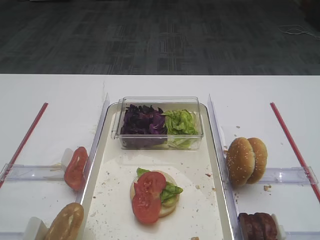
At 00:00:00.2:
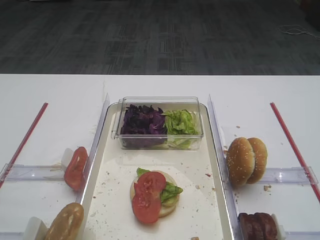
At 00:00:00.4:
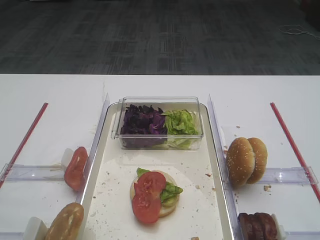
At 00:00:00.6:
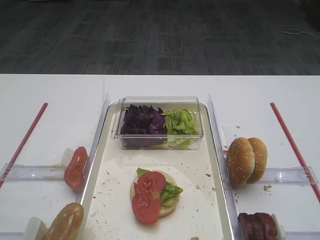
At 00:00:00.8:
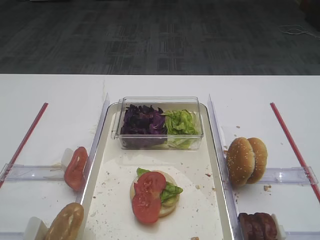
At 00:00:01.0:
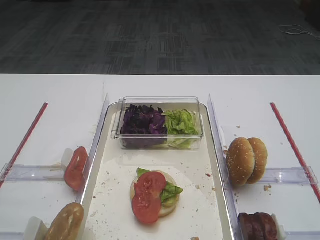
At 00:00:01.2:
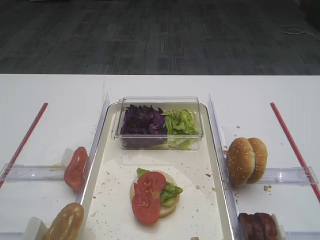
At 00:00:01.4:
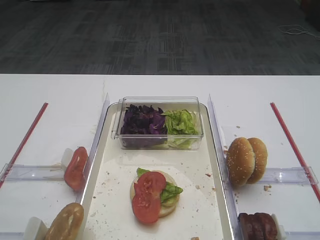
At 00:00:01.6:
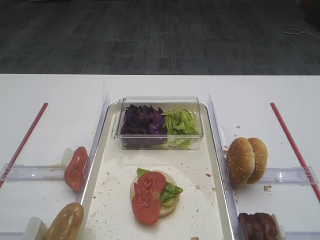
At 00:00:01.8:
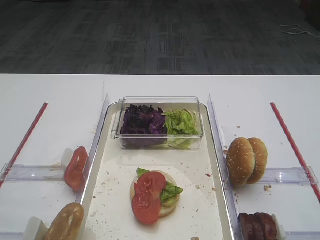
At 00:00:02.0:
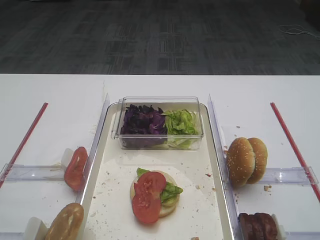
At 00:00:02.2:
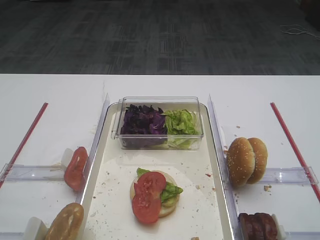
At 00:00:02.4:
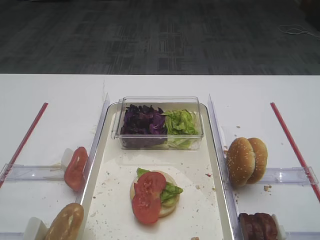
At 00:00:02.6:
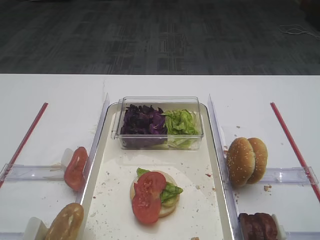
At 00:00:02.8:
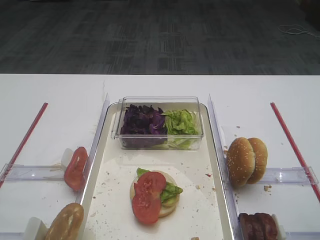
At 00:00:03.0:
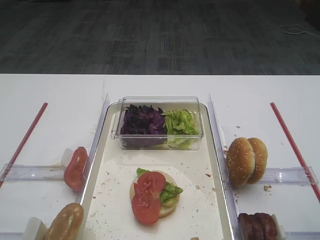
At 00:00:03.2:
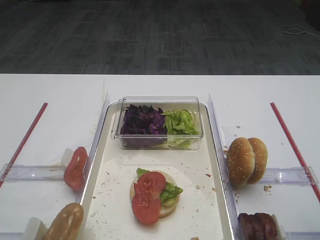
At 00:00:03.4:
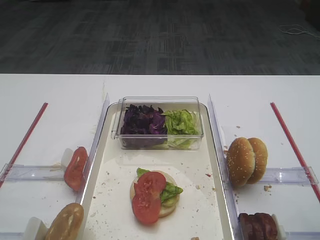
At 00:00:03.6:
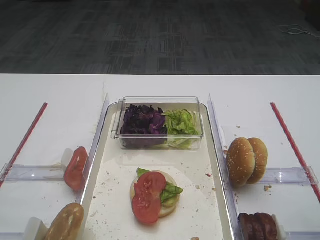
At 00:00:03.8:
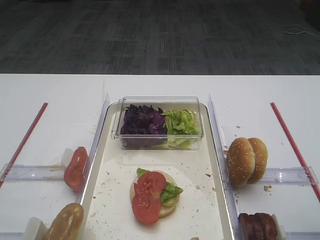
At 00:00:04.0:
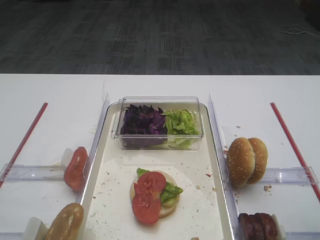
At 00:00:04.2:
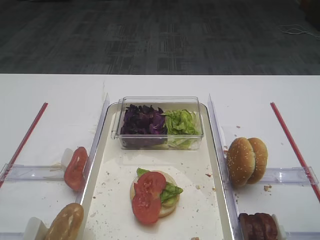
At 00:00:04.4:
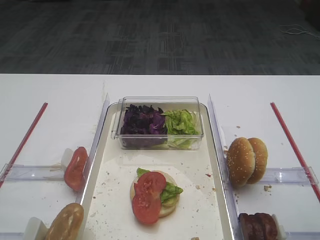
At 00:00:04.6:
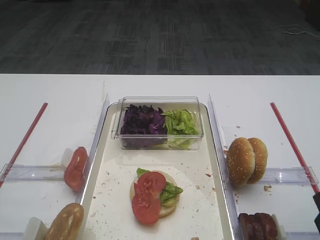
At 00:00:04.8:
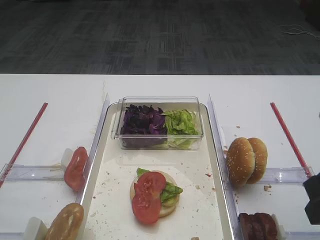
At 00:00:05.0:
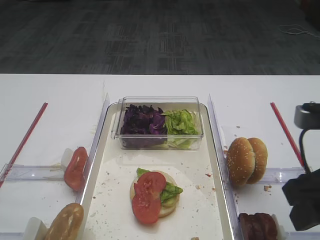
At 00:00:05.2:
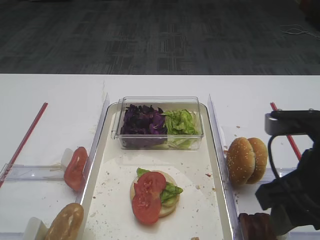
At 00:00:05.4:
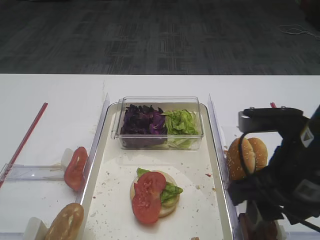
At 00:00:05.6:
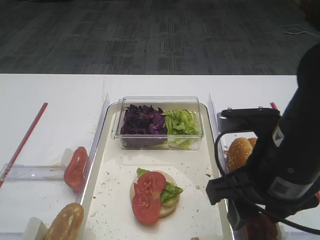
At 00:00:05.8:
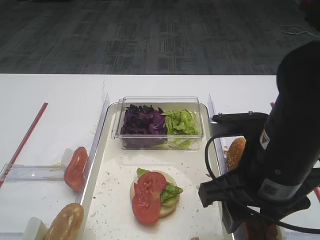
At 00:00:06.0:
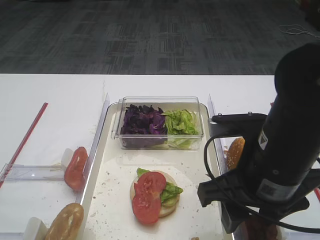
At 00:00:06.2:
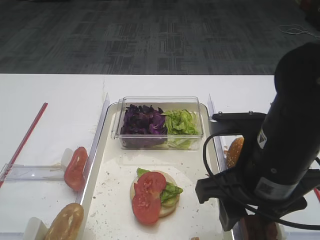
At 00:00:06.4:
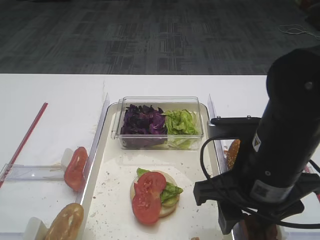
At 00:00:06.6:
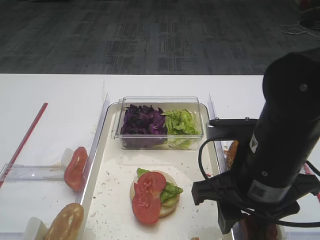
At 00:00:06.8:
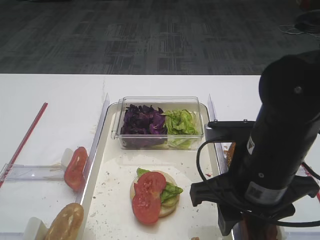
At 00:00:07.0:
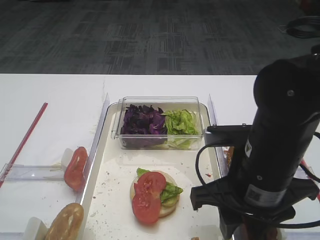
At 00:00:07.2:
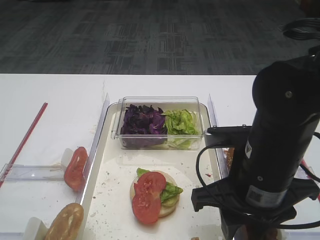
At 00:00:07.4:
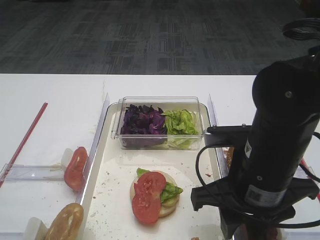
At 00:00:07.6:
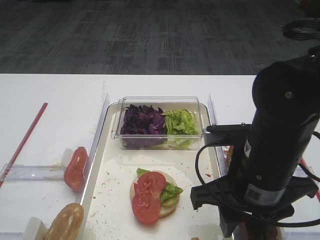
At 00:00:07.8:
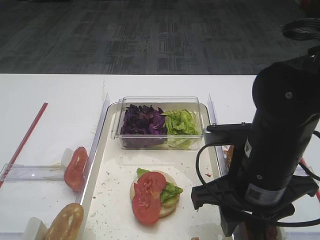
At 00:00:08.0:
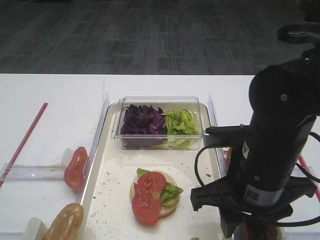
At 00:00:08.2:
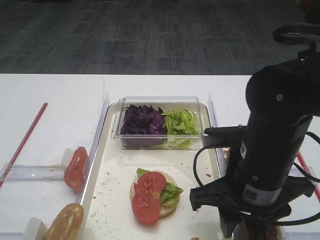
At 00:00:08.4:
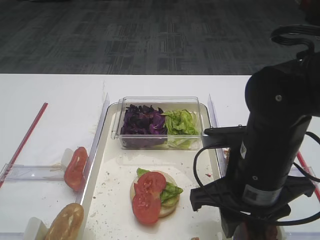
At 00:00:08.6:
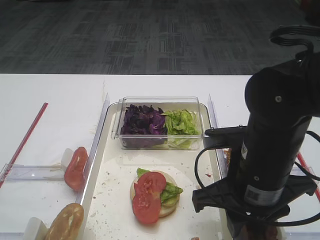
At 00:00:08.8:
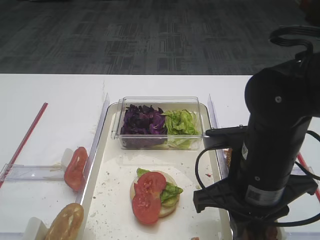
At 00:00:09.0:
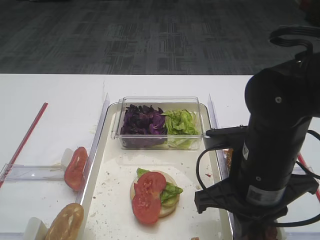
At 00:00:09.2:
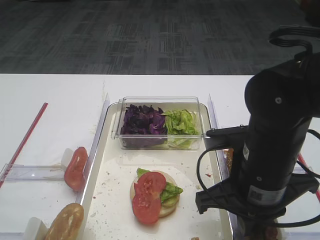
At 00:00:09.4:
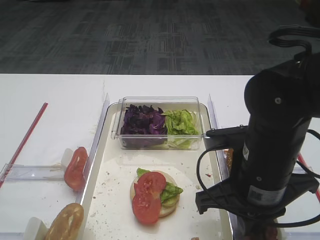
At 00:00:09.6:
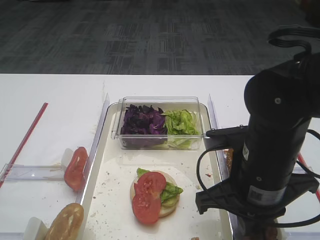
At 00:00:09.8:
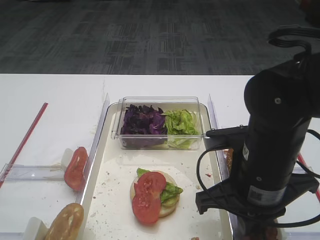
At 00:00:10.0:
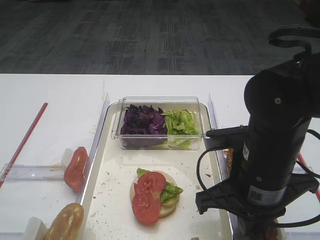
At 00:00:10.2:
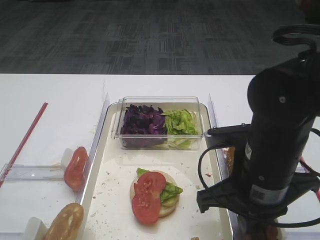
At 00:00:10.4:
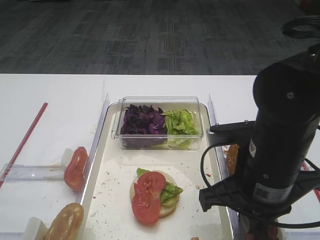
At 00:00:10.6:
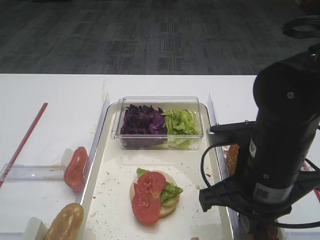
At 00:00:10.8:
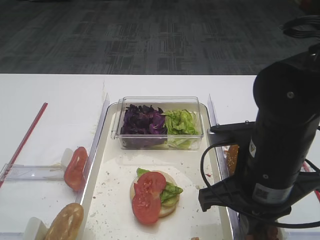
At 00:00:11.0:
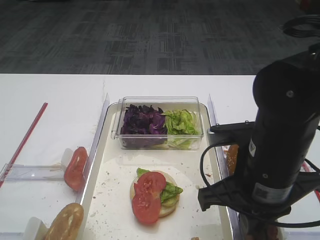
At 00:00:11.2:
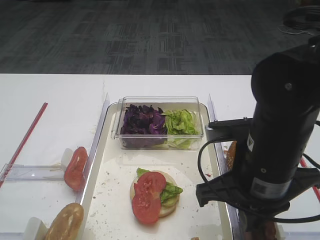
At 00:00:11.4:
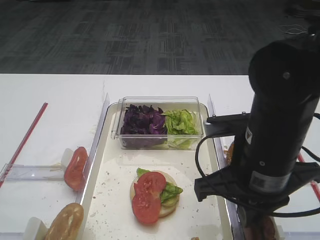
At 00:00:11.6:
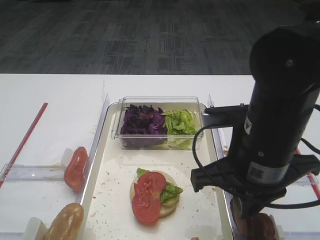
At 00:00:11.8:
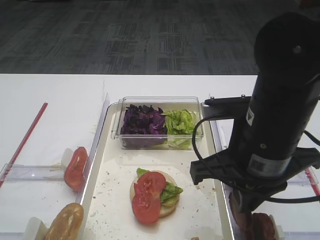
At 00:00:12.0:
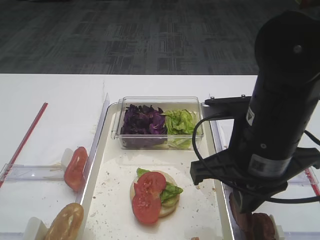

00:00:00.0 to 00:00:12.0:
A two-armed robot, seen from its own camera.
00:00:04.4 to 00:00:06.0: The right gripper shifts roughly 15 cm to the left.
00:00:06.0 to 00:00:07.6: The grippers make only small movements.
00:00:07.6 to 00:00:09.0: Both grippers stay put.
00:00:09.0 to 00:00:10.4: Neither gripper changes place.
00:00:10.4 to 00:00:12.0: The grippers make only small movements.

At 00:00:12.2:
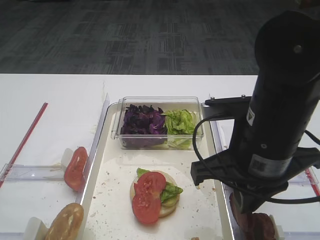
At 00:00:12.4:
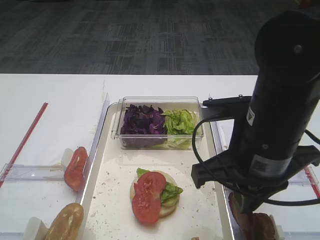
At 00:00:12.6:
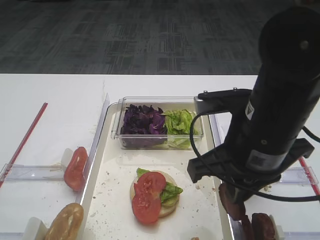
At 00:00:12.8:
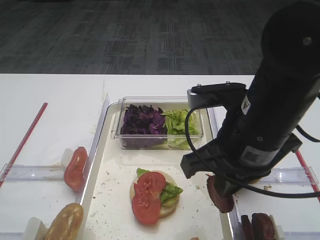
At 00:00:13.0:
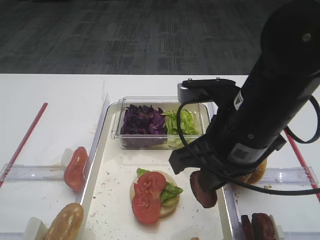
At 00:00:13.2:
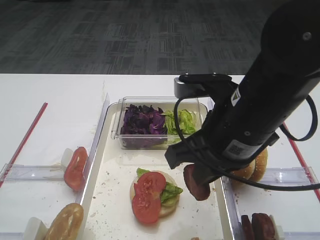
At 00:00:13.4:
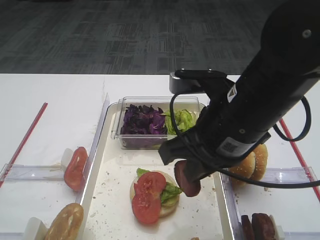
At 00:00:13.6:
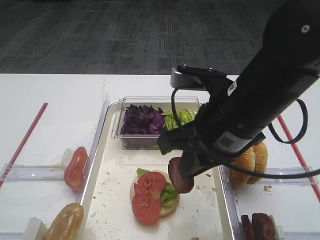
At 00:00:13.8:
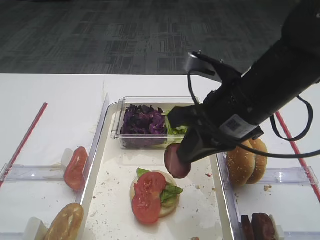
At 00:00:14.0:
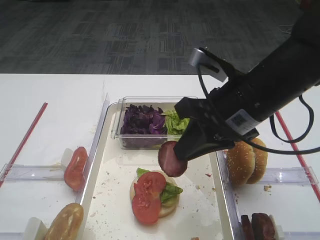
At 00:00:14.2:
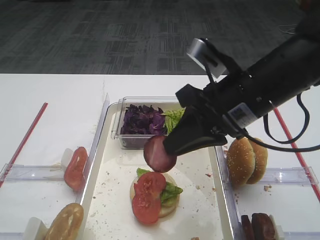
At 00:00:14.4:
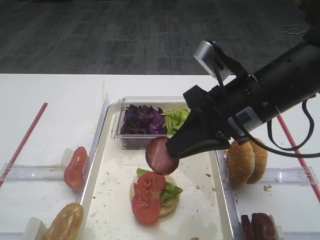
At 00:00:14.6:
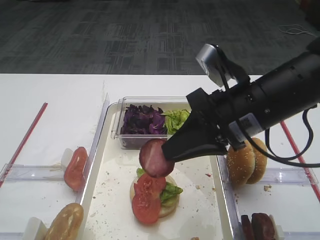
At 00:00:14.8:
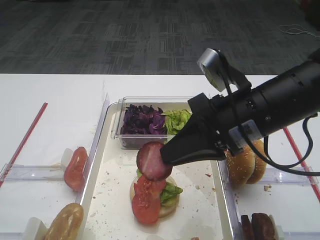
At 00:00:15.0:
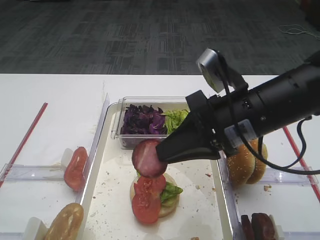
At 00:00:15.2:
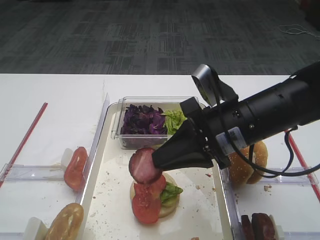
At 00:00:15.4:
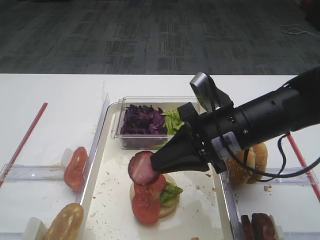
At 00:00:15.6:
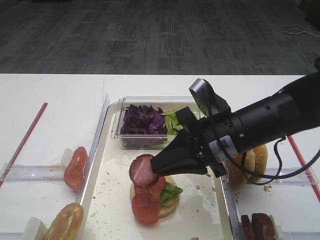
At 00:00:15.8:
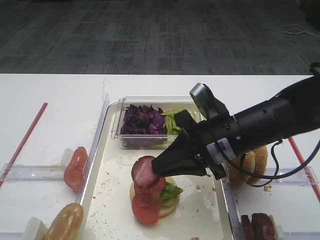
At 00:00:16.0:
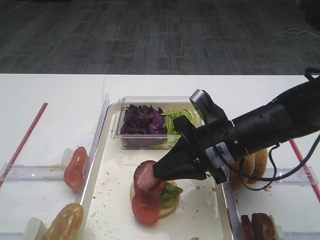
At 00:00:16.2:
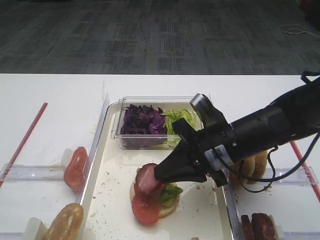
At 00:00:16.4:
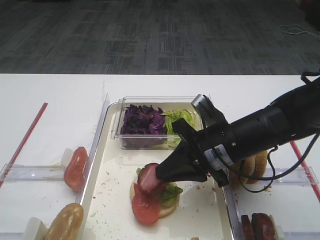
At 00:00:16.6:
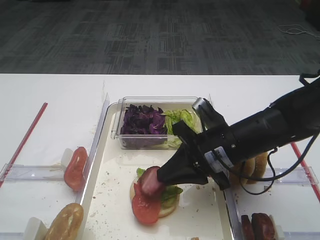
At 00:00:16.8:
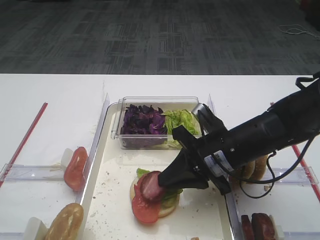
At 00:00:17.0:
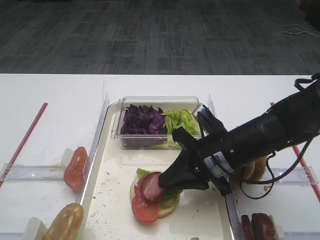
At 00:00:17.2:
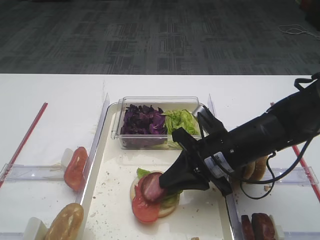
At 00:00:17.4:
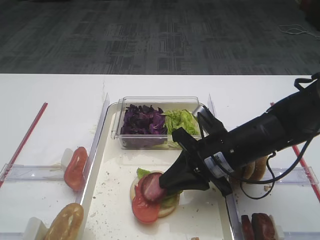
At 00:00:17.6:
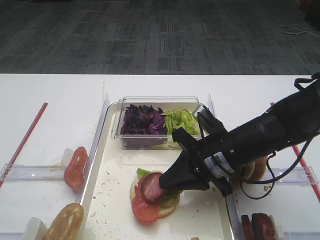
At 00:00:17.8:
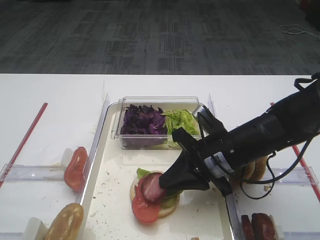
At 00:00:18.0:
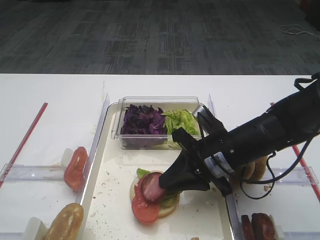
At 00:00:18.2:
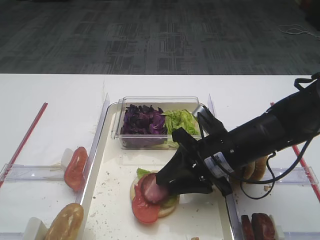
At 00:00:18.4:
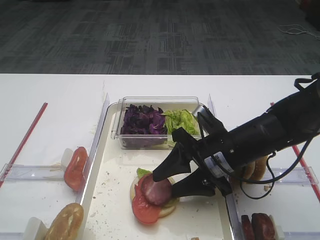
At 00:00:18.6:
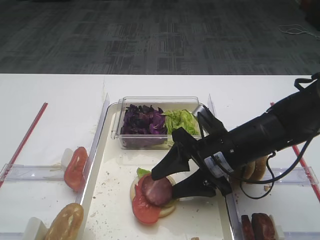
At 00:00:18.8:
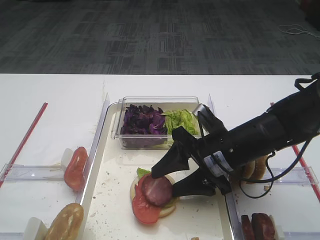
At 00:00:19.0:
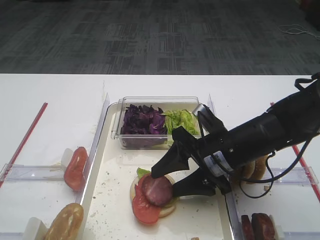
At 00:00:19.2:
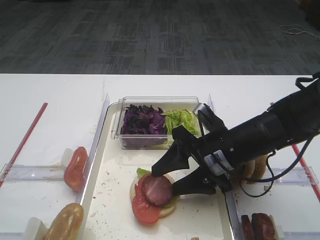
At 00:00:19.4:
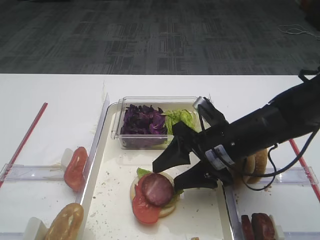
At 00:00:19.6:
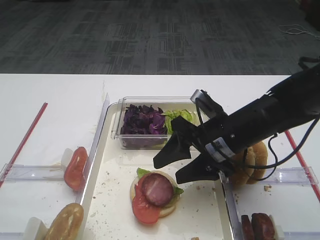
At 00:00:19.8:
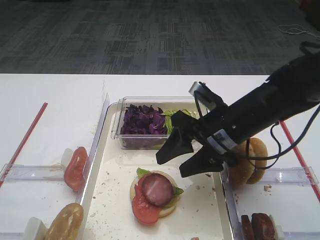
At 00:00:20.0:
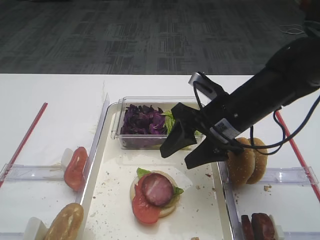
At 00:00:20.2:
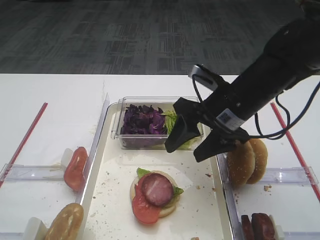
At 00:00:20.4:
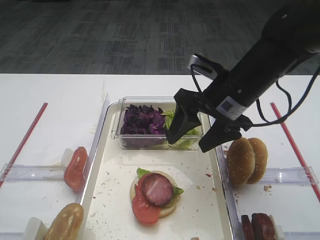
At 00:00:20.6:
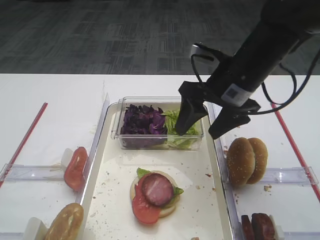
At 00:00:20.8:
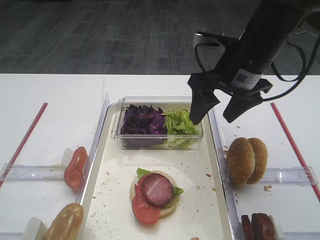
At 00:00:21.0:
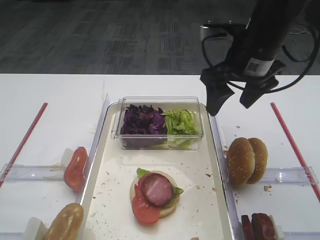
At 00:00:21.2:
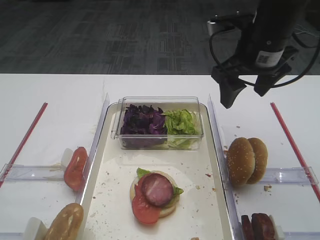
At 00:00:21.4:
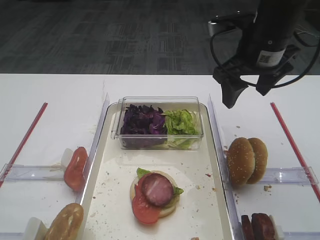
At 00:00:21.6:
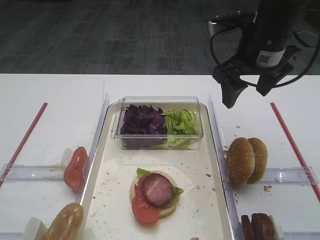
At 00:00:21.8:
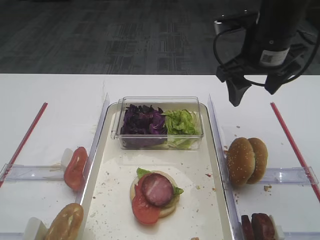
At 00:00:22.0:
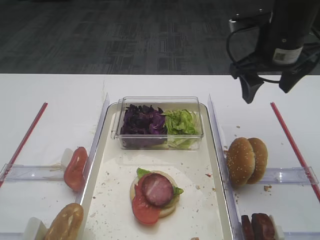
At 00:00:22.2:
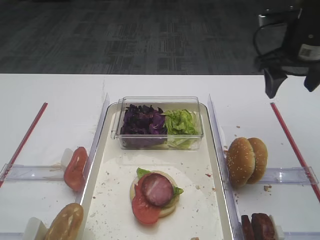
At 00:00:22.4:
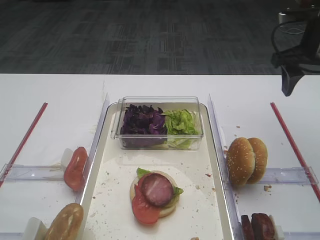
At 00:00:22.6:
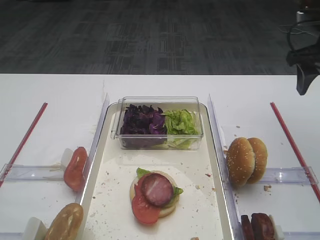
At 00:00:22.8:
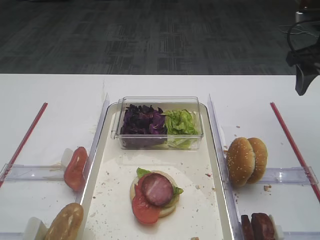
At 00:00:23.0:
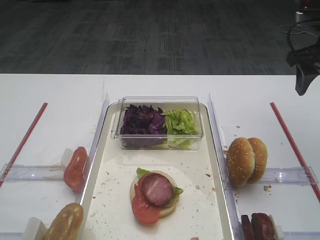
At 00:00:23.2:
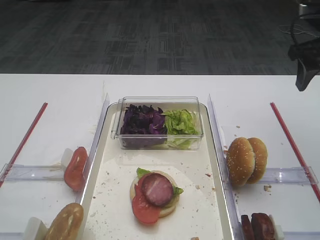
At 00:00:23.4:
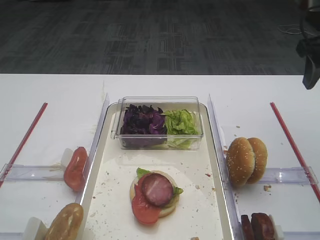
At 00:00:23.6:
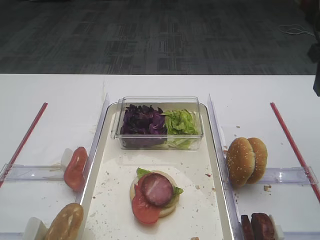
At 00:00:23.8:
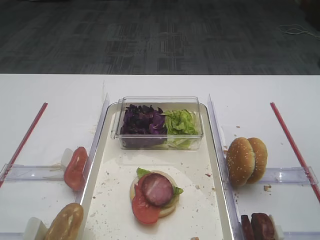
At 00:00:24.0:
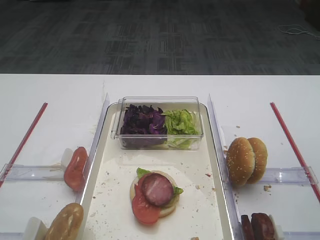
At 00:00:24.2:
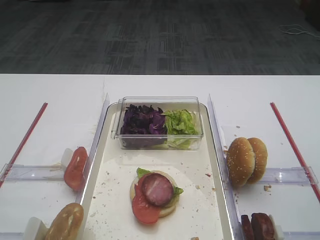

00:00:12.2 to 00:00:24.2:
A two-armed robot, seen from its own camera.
Step, 00:00:12.6 to 00:00:19.8: Place the cutlet on the tomato slice with the right gripper.
00:00:15.2 to 00:00:16.6: The right gripper travels downward by some 5 cm.
00:00:16.6 to 00:00:18.2: The grippers move only a little.
00:00:18.2 to 00:00:19.8: The right gripper opens up.
00:00:19.8 to 00:00:21.2: The right gripper moves upward and forward, about 15 cm.
00:00:21.2 to 00:00:22.6: The right gripper travels to the right by roughly 15 cm.
00:00:22.6 to 00:00:24.2: The right gripper heads backward, covering approximately 15 cm.
